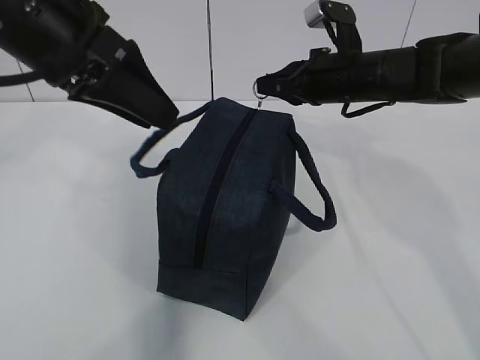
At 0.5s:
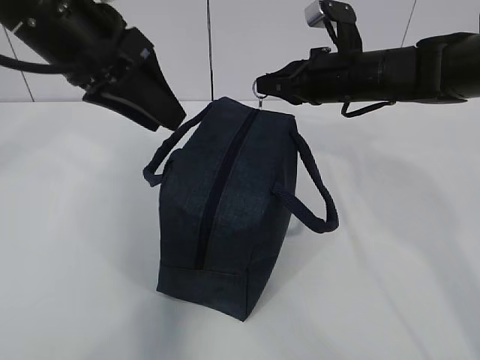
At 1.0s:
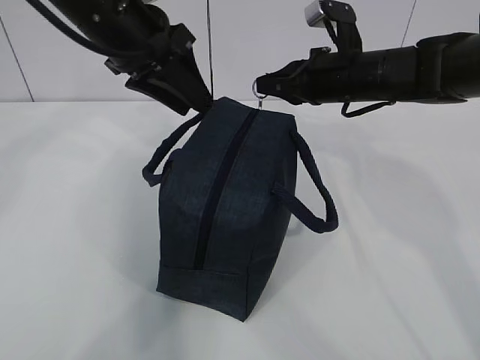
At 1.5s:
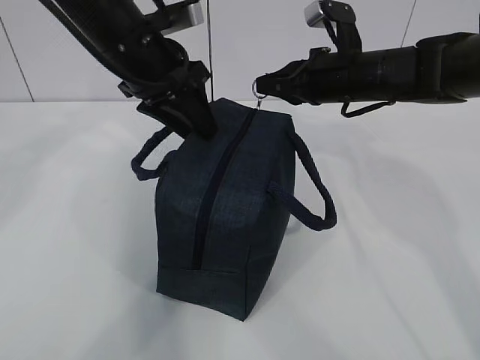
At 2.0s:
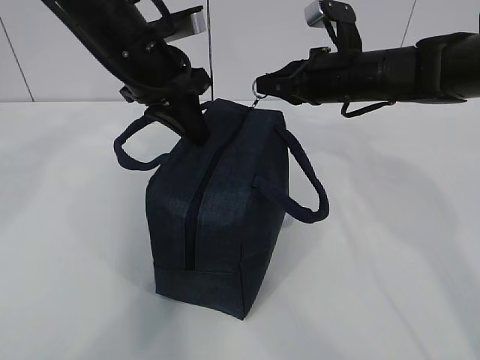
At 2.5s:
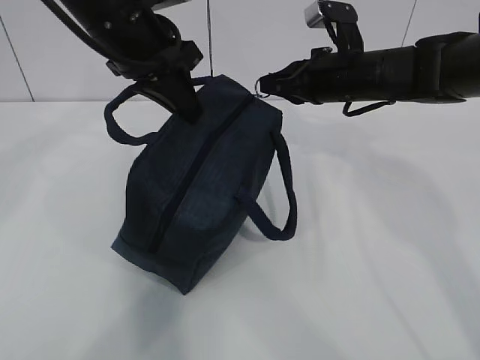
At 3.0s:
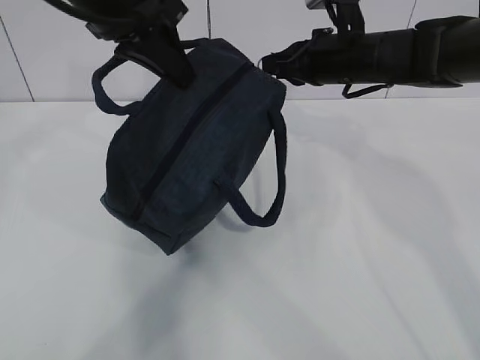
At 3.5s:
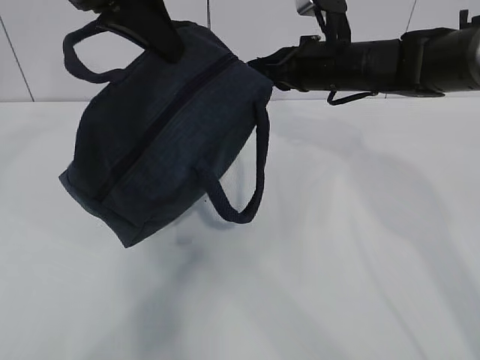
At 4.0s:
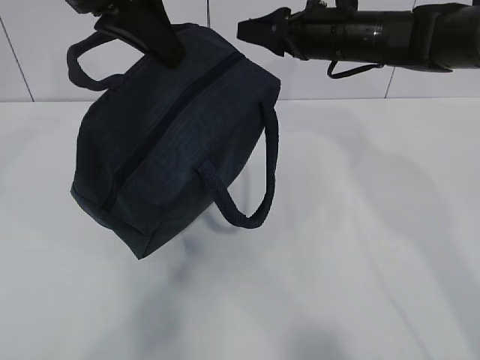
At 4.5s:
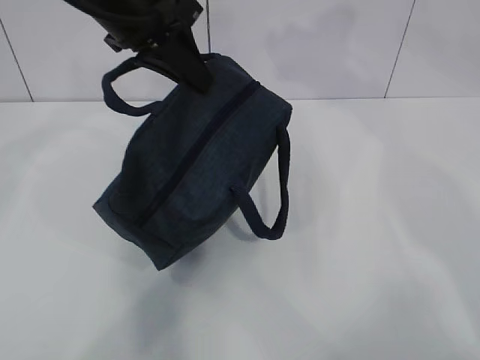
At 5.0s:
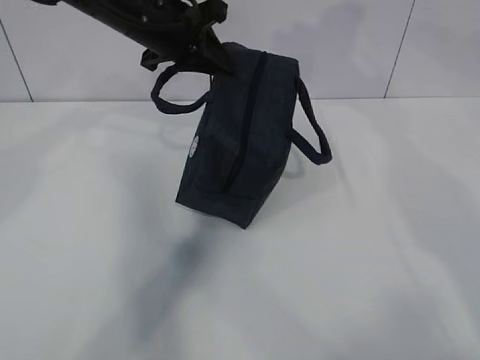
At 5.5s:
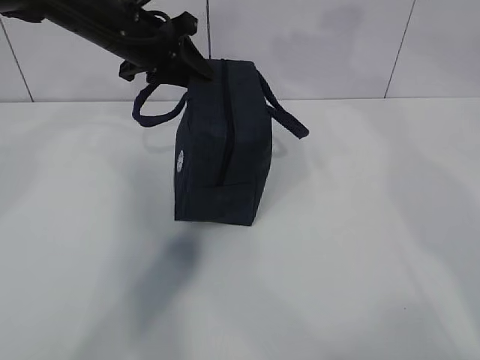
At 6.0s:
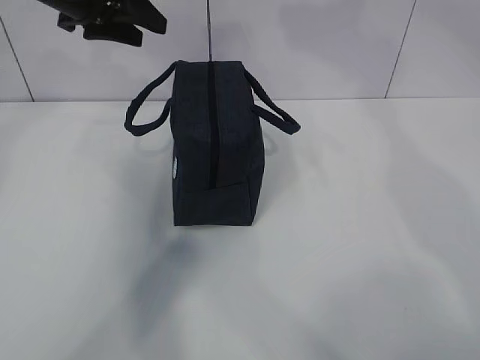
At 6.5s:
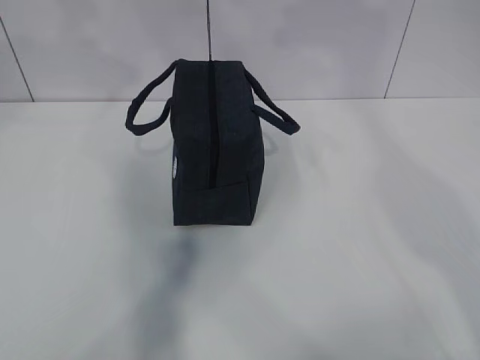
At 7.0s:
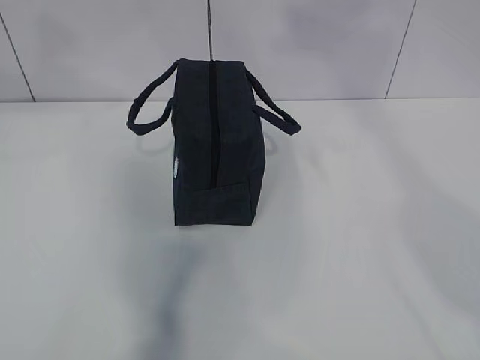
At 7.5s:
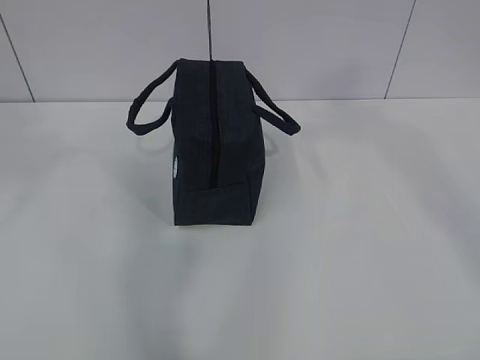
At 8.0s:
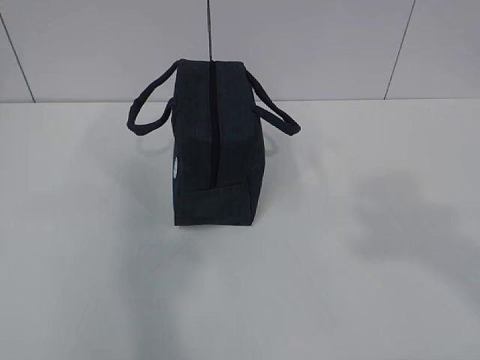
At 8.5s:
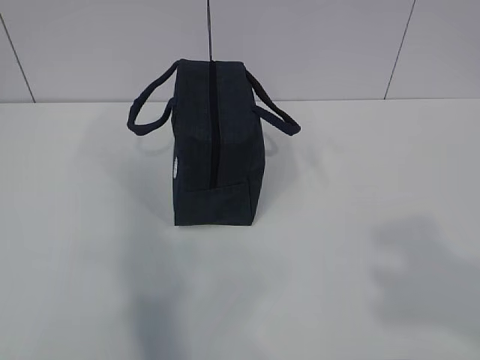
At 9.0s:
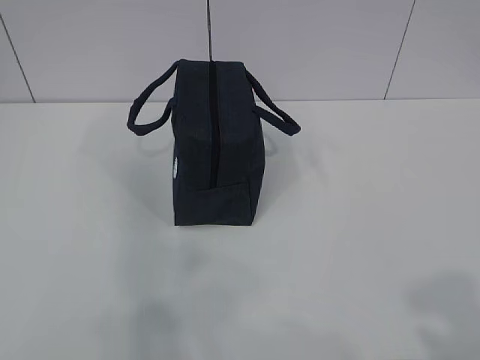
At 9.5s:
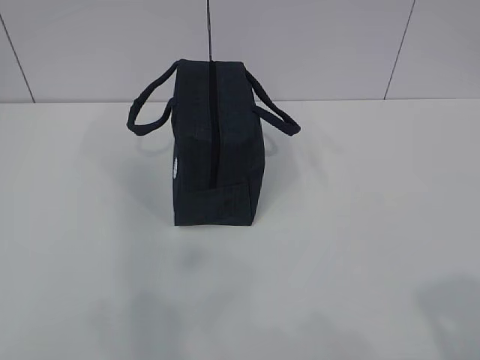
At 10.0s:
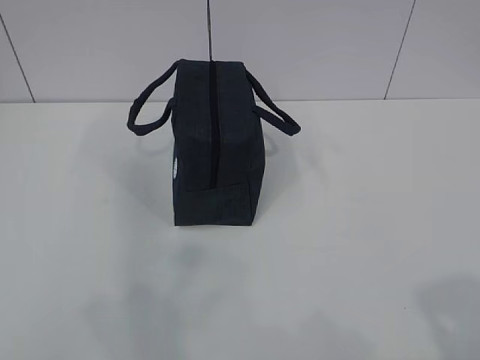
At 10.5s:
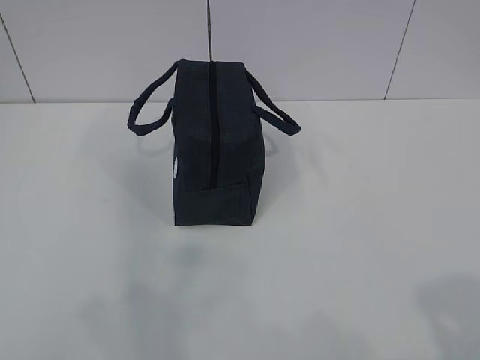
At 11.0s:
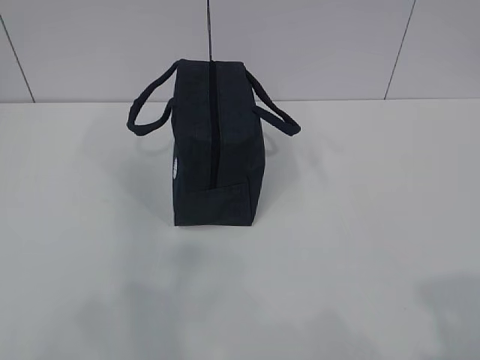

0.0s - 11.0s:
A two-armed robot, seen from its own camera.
0.0s - 2.0s: The left gripper travels forward and downward by about 10 cm, and closes up.
2.0s - 3.5s: The left gripper moves upward and backward, some 10 cm.
3.5s - 5.5s: The right gripper shifts some 15 cm upward and to the right, and opens its fingers; the left gripper goes roughly 15 cm forward and downward, and opens up.
5.5s - 7.5s: The grippers both shift backward and upward by roughly 40 cm.
